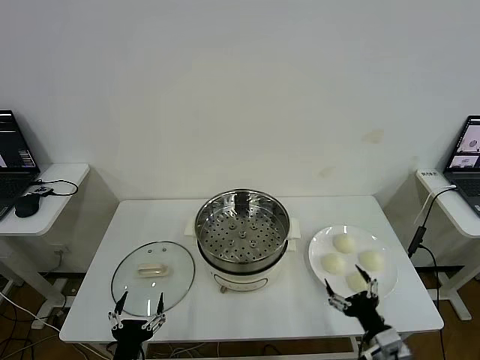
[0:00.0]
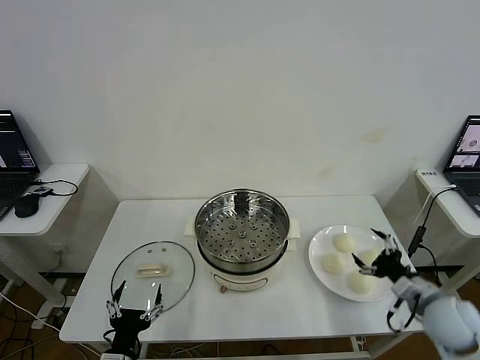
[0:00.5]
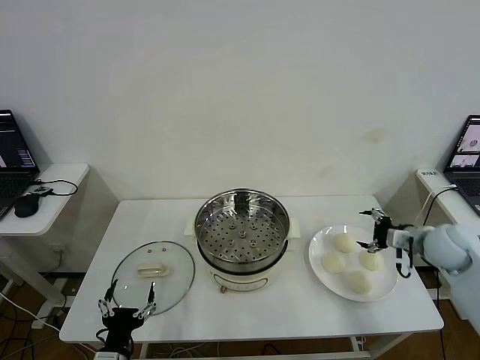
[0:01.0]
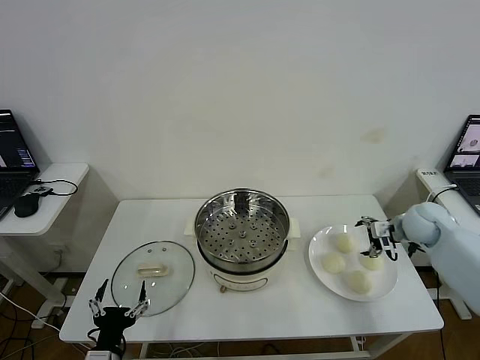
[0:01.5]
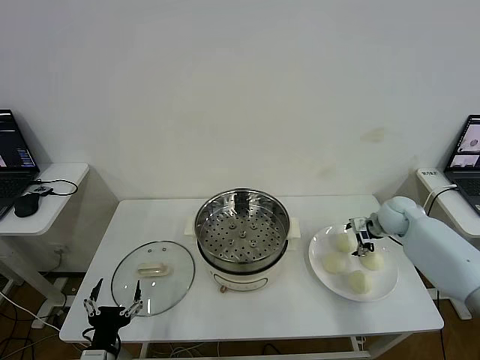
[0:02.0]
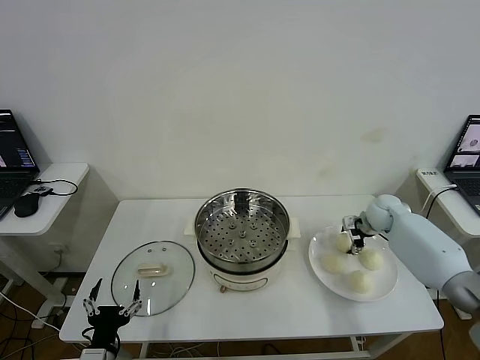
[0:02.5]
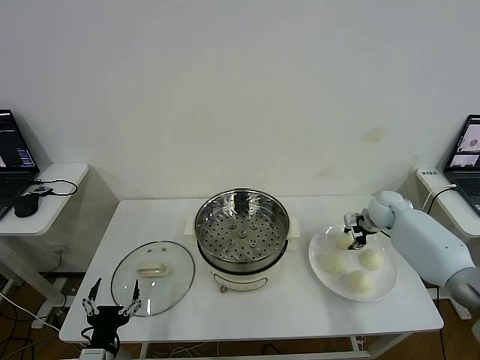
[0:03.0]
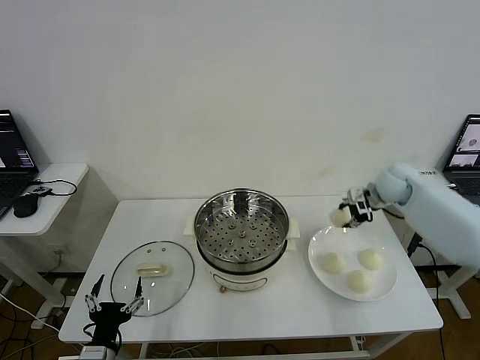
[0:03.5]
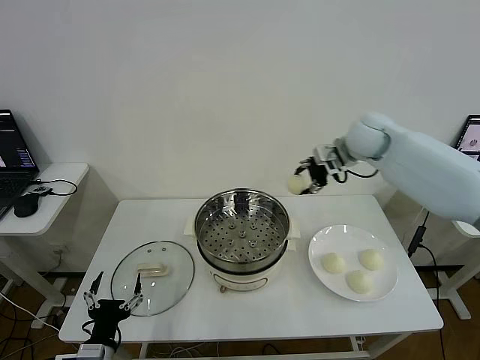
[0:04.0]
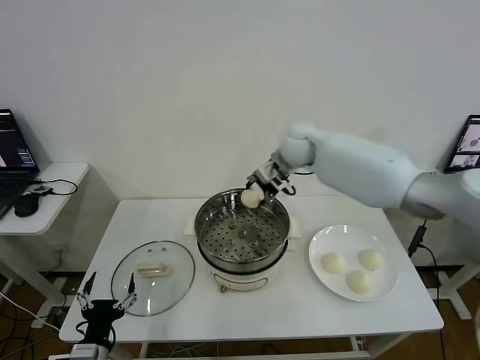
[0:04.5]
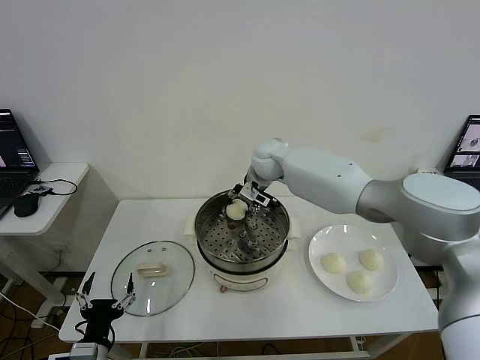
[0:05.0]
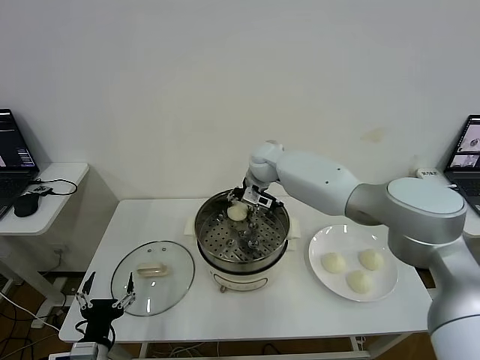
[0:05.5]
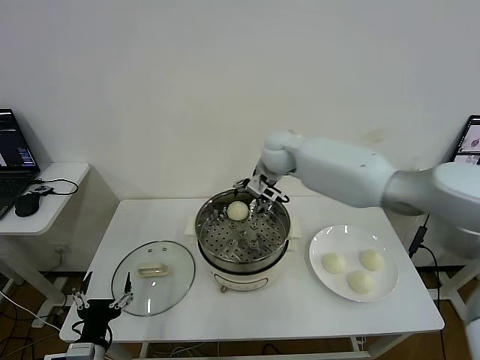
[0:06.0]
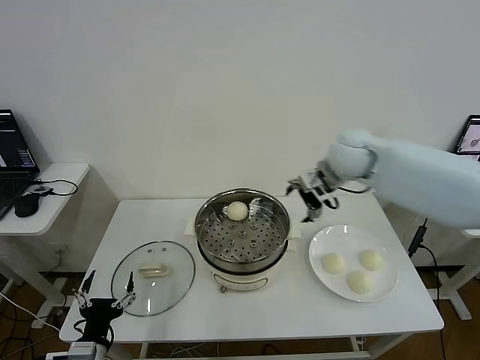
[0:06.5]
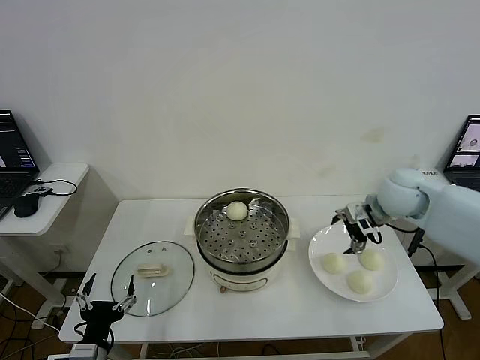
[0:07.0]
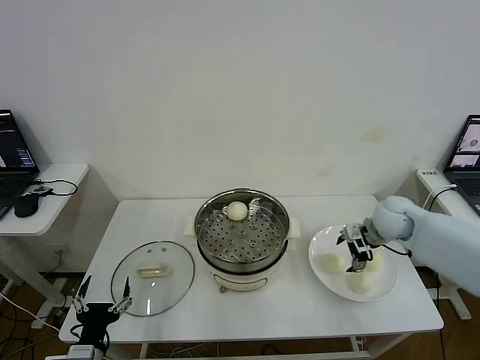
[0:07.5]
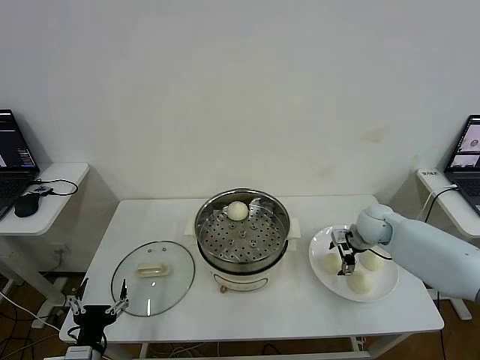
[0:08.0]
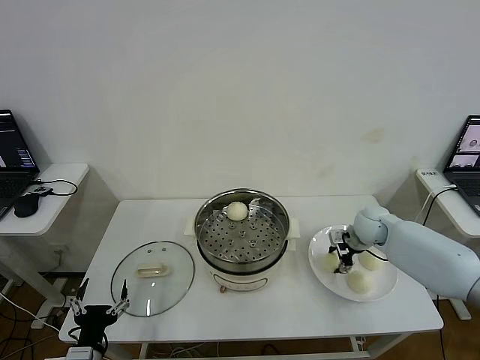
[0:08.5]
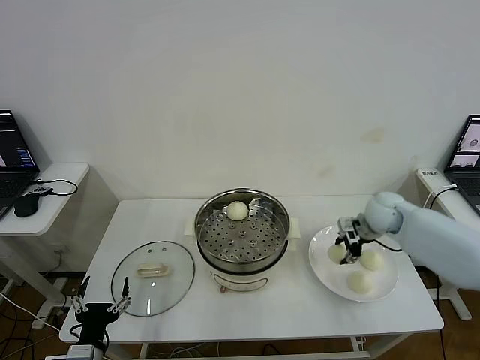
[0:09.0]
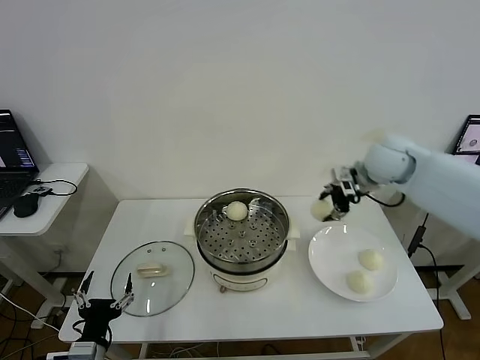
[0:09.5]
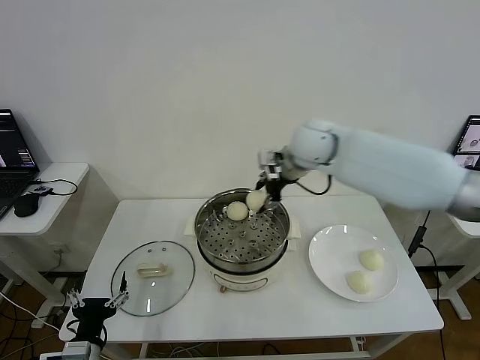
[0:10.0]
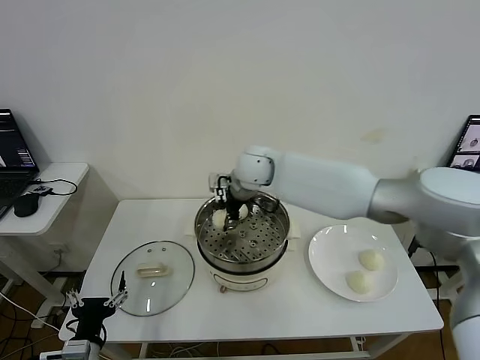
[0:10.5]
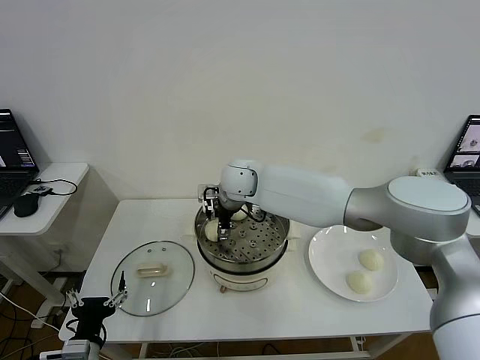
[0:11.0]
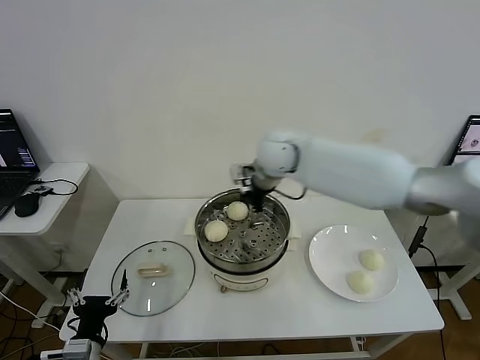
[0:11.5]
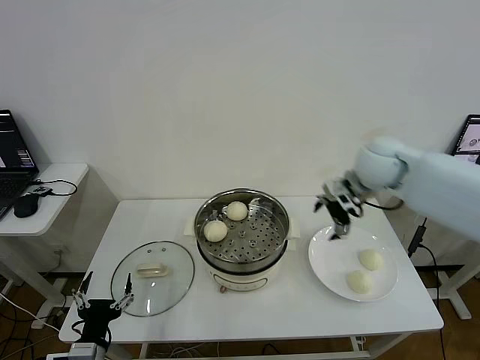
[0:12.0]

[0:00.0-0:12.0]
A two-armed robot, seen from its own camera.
Step, 0:00.0 to 0:02.5: Grasp the baozi in the plate with right gripper.
Step, 0:03.0 to 0:05.5: Place the baozi on the steamer with right gripper.
Step, 0:06.0 to 0:08.5: Grasp the baozi in the plate with right gripper.
Step, 0:09.0 to 0:11.0: Place the baozi on the steamer with right gripper.
0:02.0 to 0:04.0: The right gripper is displaced upward and to the left by roughly 25 cm, and closes.
0:04.0 to 0:06.0: The right gripper heads to the left, covering some 15 cm, and opens up.
0:06.0 to 0:08.0: The right gripper shifts about 30 cm to the right and downward.
0:08.0 to 0:10.0: The right gripper goes some 30 cm upward and to the left, and closes its fingers.
0:10.0 to 0:12.0: The right gripper travels to the right by about 15 cm, and opens.

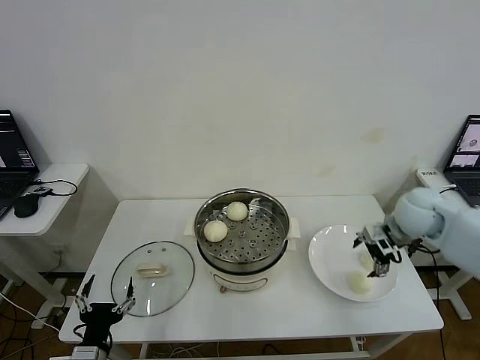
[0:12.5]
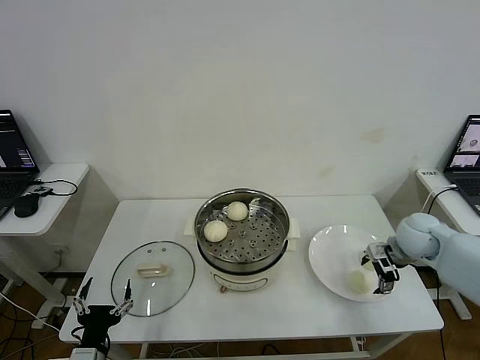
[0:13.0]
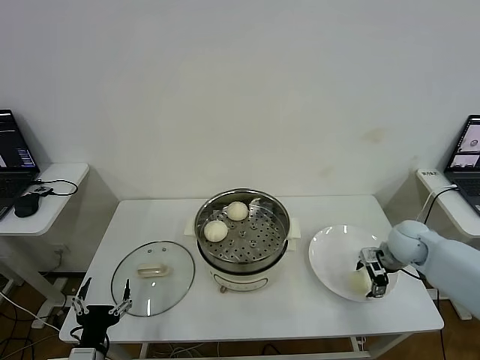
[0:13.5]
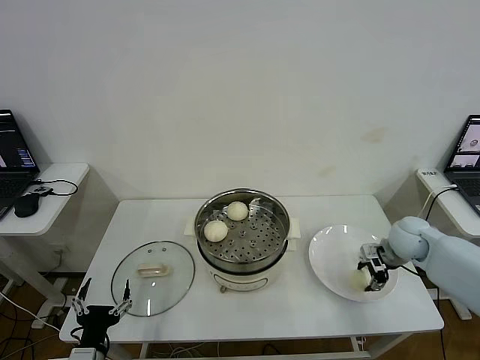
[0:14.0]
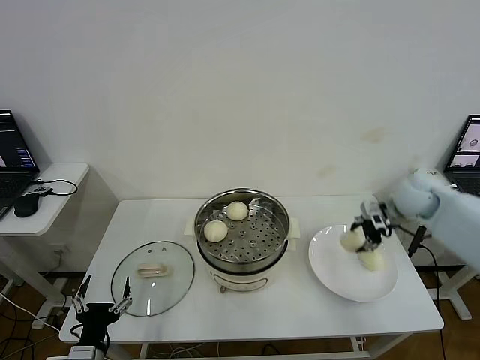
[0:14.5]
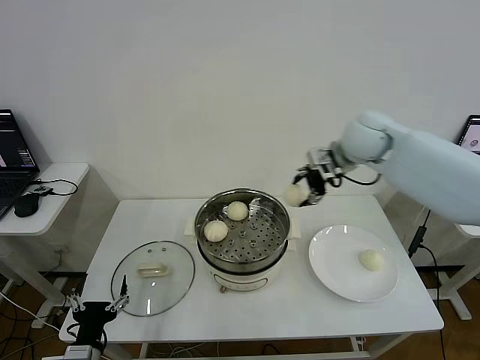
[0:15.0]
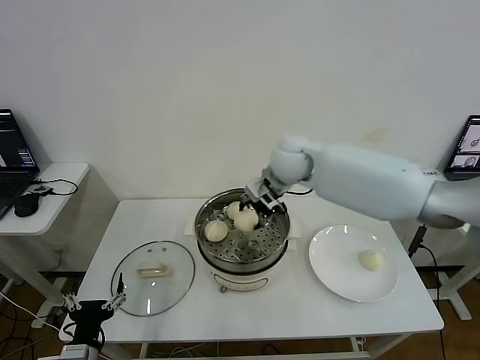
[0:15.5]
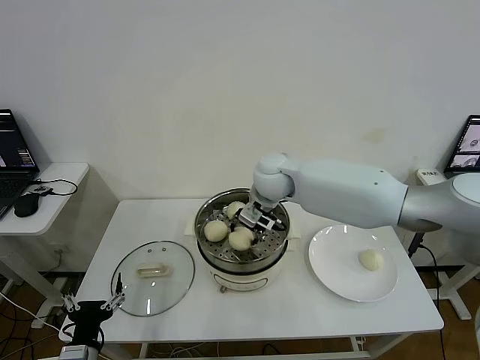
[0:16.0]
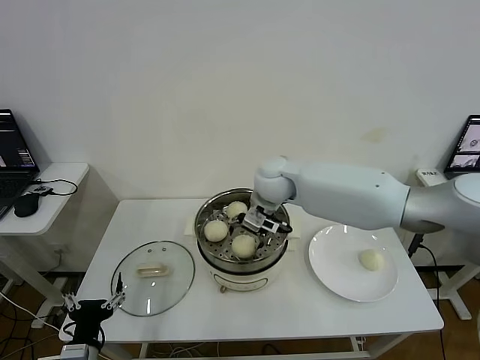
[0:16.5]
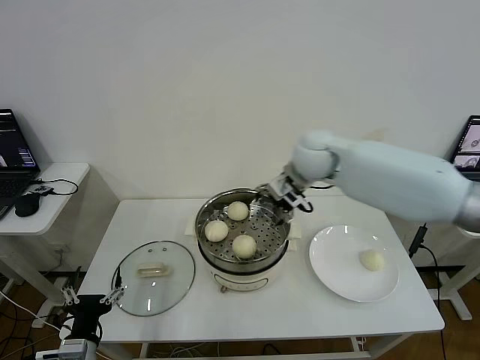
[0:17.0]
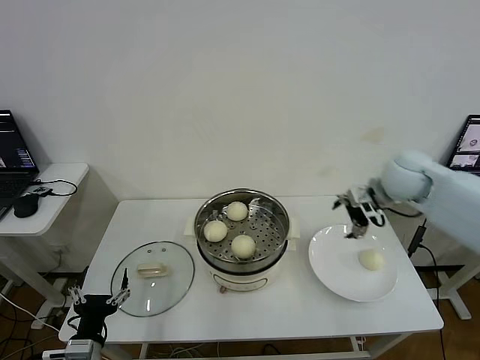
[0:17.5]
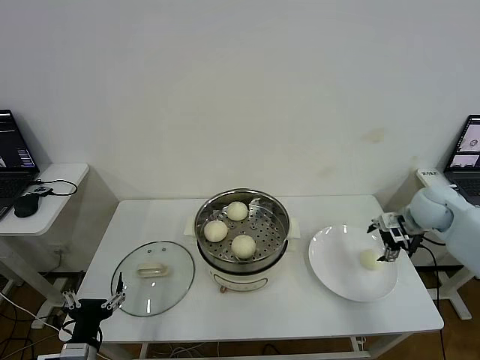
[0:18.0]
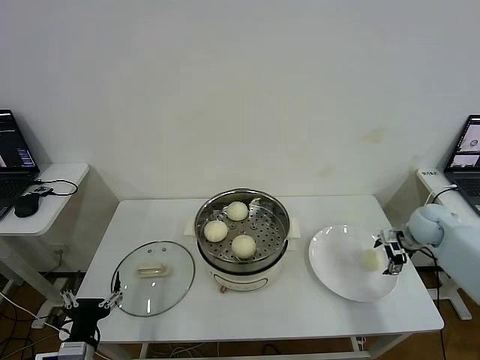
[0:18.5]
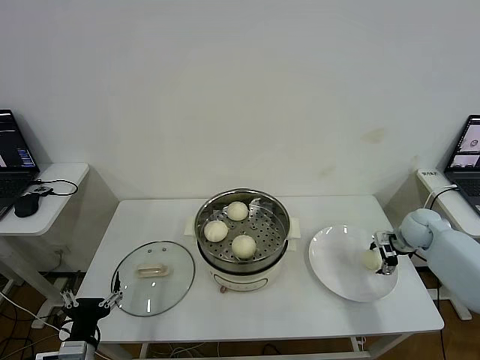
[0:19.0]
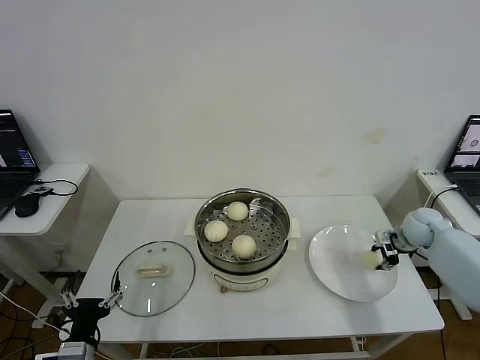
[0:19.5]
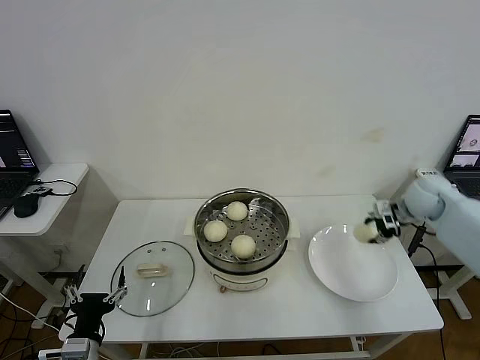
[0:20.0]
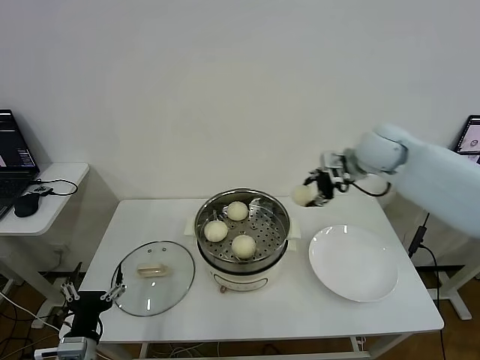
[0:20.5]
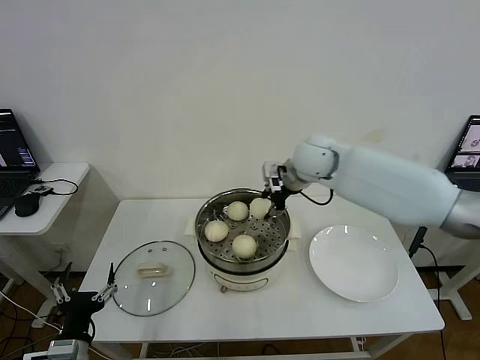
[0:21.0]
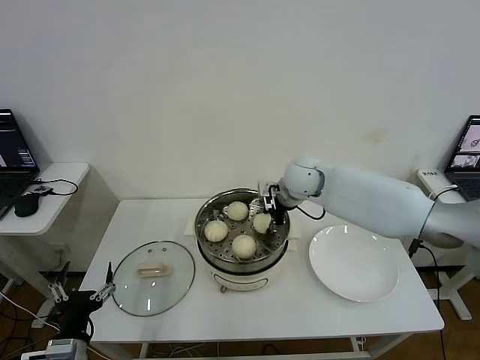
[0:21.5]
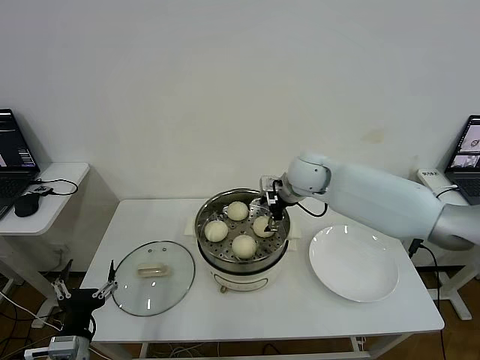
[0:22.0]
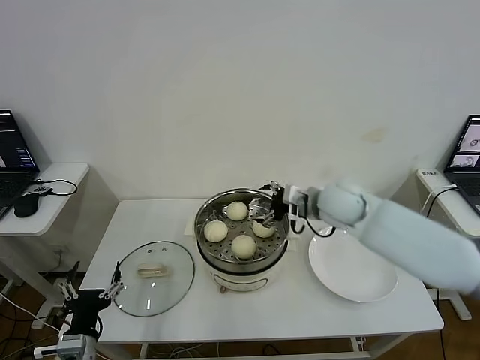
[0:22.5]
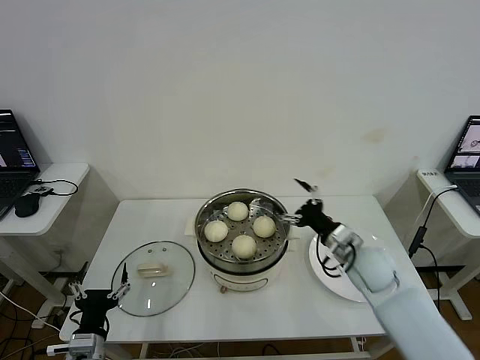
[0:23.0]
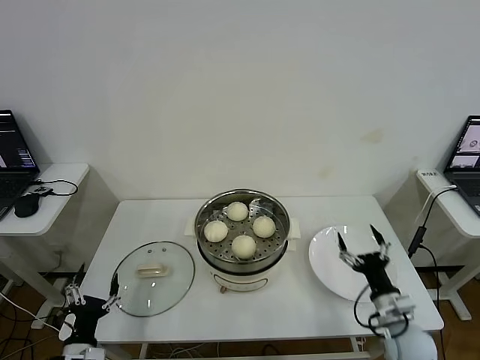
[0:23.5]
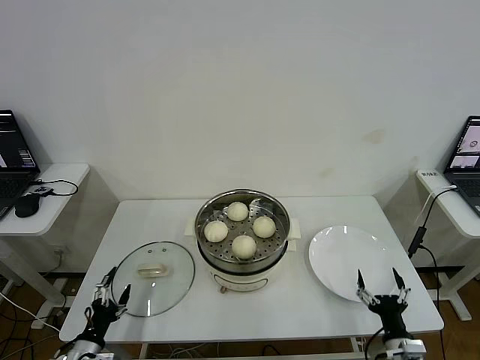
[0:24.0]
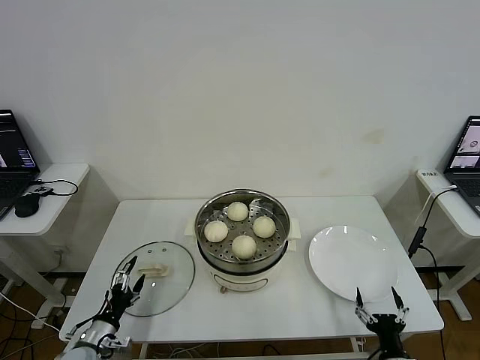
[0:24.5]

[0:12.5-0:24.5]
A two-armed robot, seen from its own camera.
Step, 0:14.0 to 0:16.5: Place the baozi on the steamer with right gripper.
Step, 0:17.0 to 0:19.0: Grasp the baozi in the plate with right gripper.
Step, 0:19.5 to 0:21.5: Place the baozi on the steamer with right gripper.
0:12.5 to 0:14.5: The right gripper reaches about 10 cm downward, then returns, and closes up.
0:14.5 to 0:16.5: The right gripper moves to the left, about 30 cm, and opens up.
0:16.5 to 0:18.5: The right gripper moves to the right, about 40 cm.
0:18.5 to 0:20.5: The right gripper moves upward and to the left, approximately 25 cm, and closes its fingers.
0:20.5 to 0:22.5: The right gripper heads downward, to the left and backward, covering about 15 cm, and opens its fingers.
0:22.5 to 0:24.5: The left gripper is displaced downward, forward and to the left by roughly 15 cm. The right gripper is displaced backward, downward and to the right by approximately 50 cm.

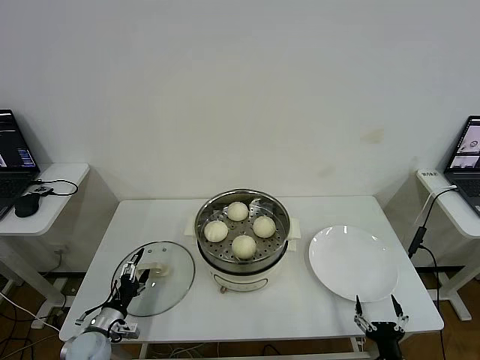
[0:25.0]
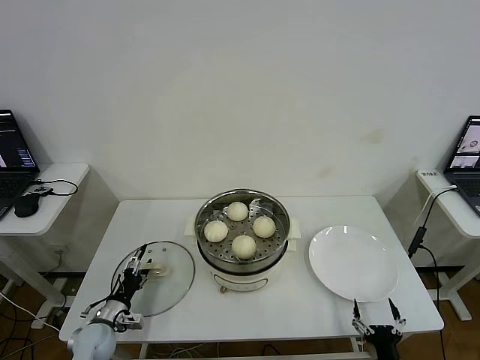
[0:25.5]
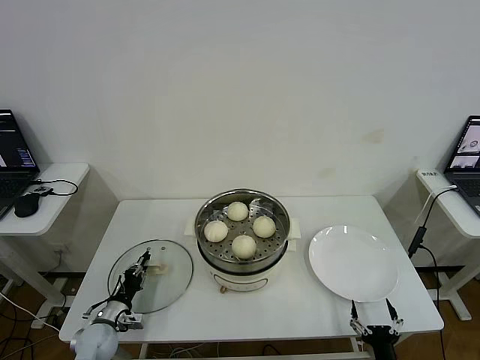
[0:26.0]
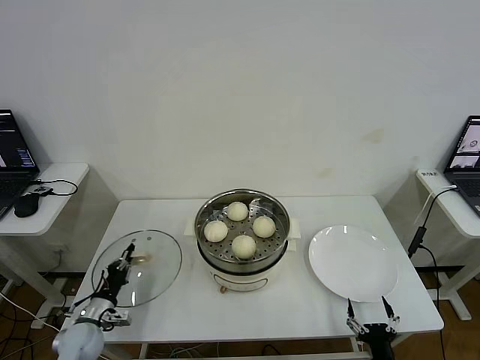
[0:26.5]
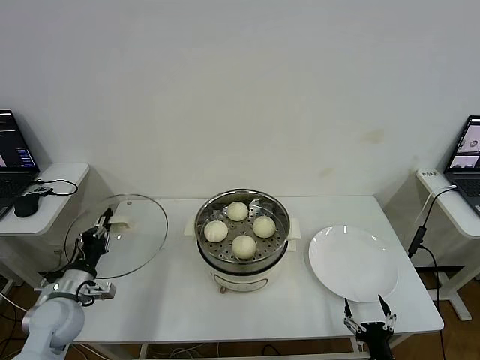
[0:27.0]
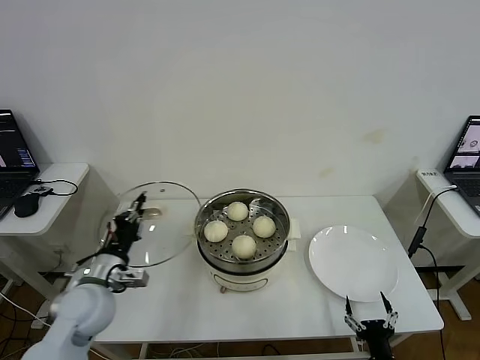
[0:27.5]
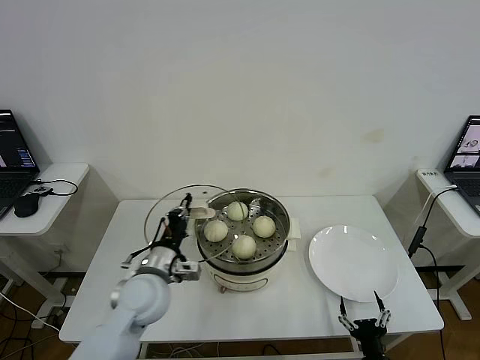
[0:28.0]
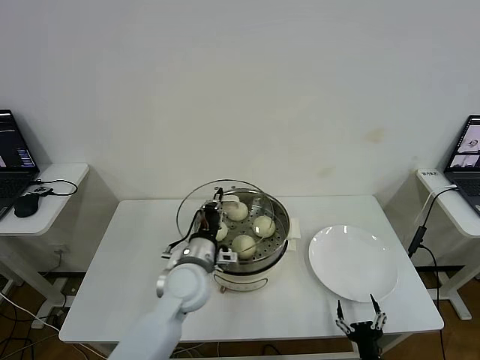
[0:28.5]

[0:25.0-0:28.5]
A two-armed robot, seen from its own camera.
0:25.0 to 0:27.0: The left gripper moves upward, approximately 15 cm, and closes up.
0:27.0 to 0:28.5: The left gripper moves to the right, approximately 25 cm.
